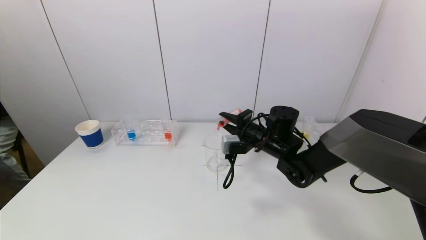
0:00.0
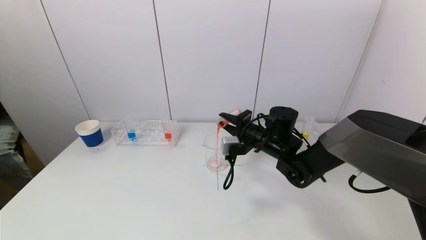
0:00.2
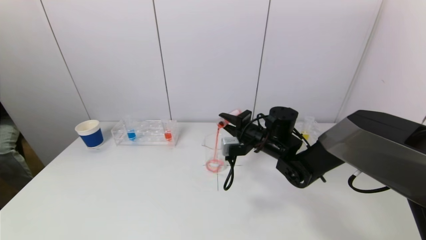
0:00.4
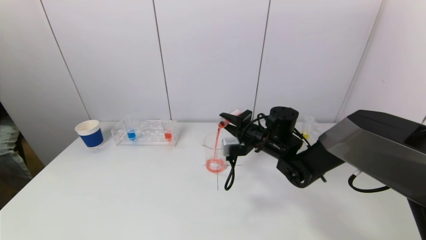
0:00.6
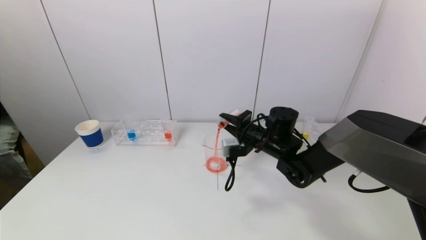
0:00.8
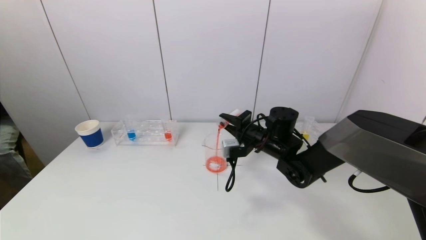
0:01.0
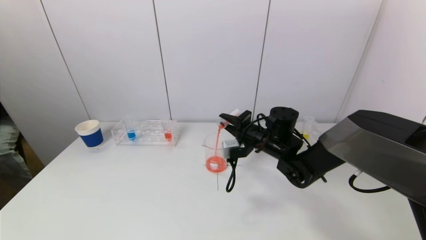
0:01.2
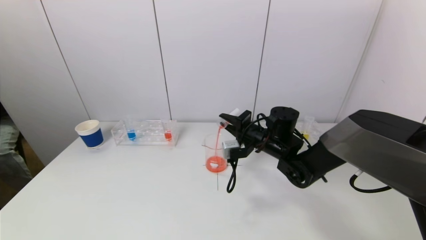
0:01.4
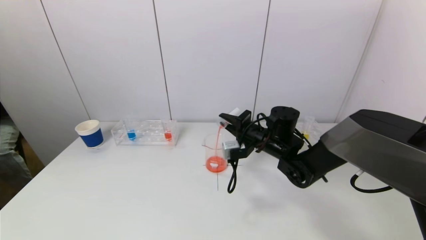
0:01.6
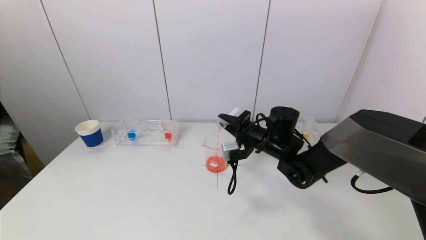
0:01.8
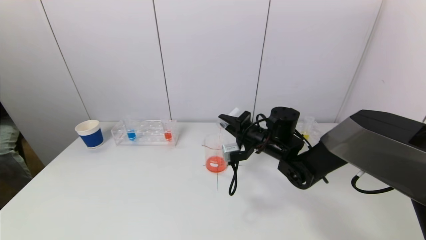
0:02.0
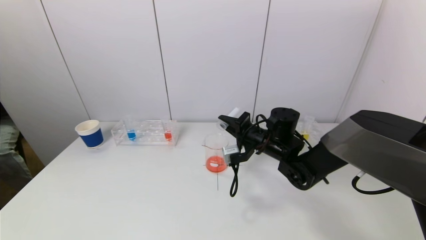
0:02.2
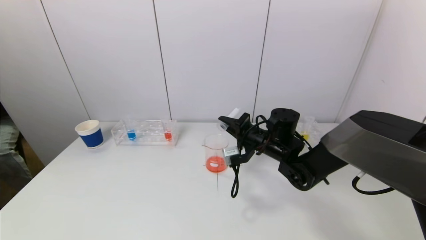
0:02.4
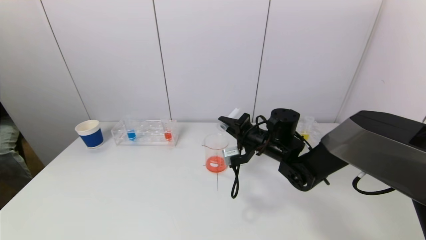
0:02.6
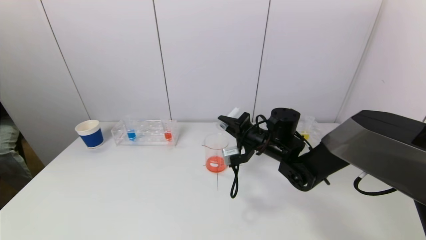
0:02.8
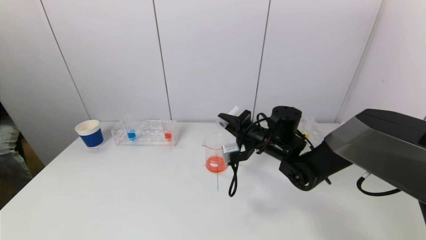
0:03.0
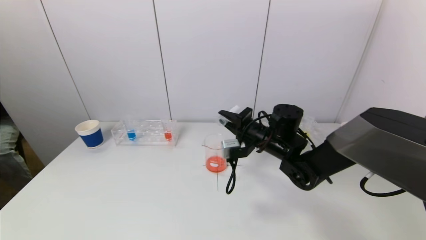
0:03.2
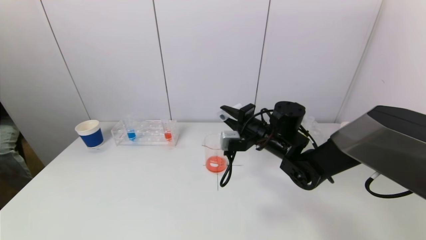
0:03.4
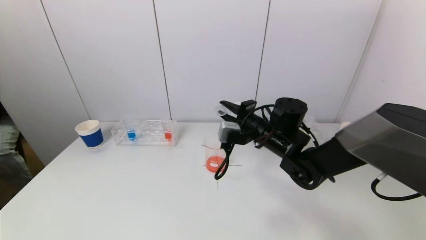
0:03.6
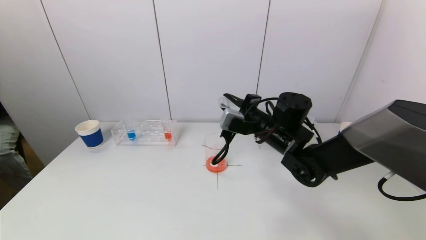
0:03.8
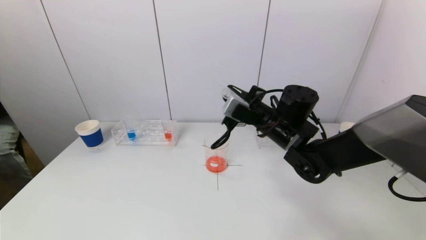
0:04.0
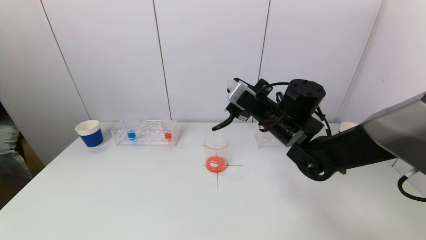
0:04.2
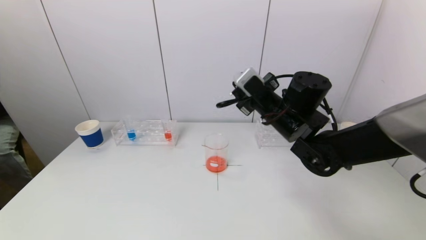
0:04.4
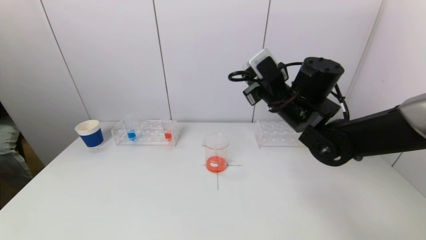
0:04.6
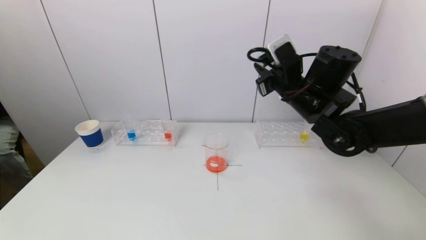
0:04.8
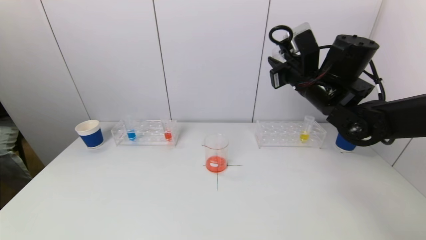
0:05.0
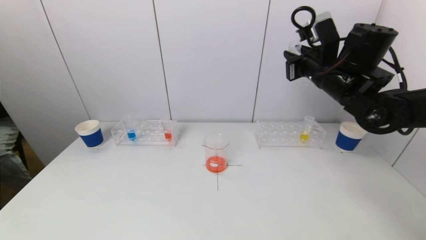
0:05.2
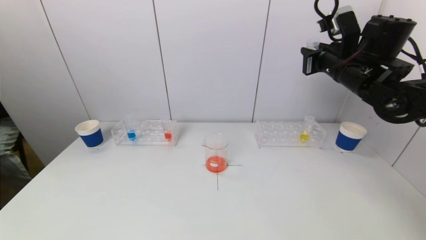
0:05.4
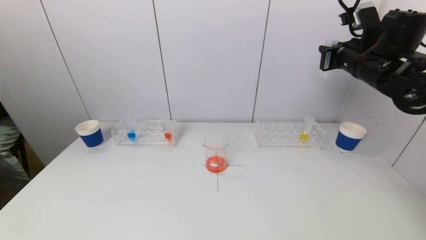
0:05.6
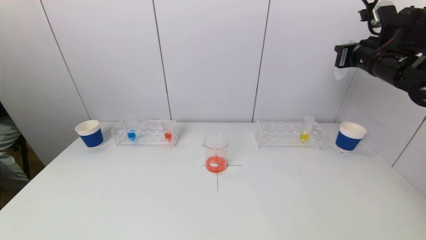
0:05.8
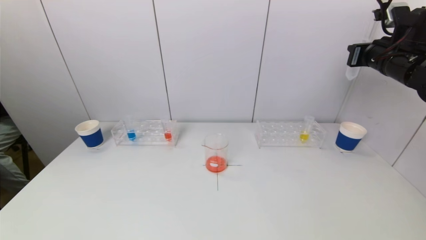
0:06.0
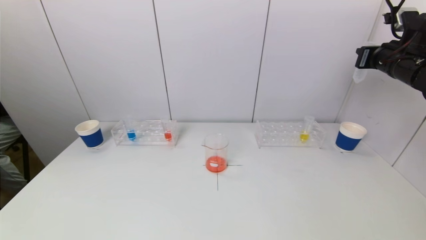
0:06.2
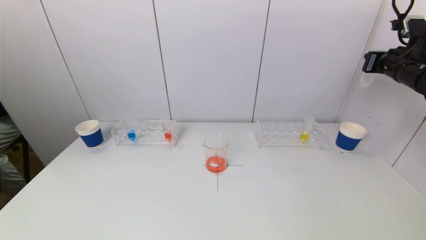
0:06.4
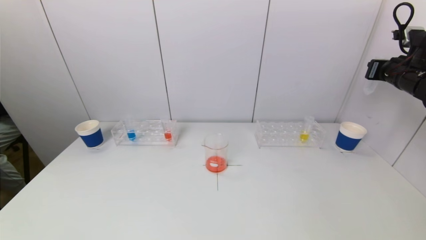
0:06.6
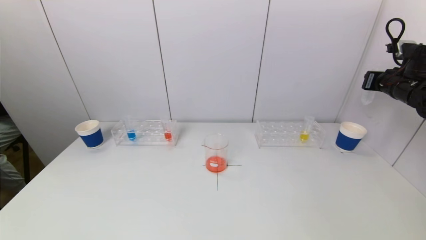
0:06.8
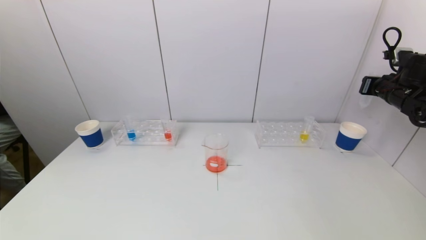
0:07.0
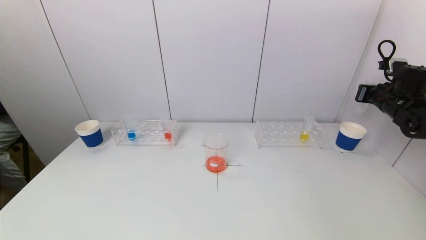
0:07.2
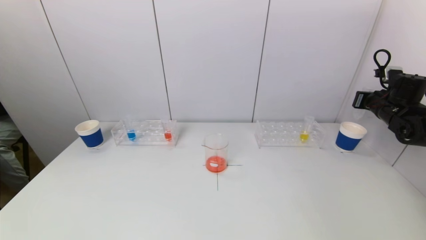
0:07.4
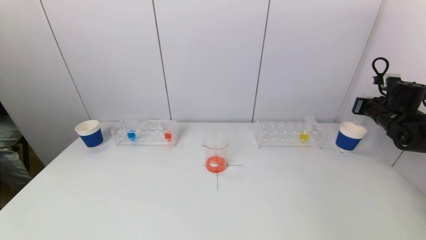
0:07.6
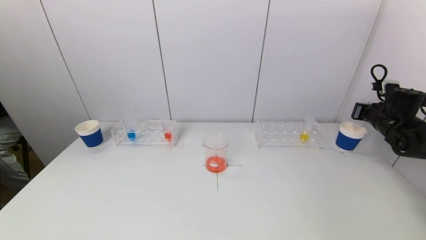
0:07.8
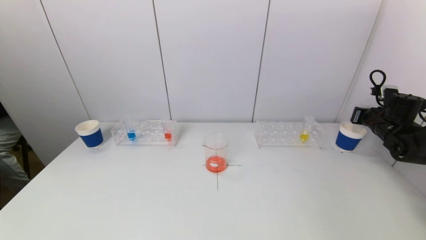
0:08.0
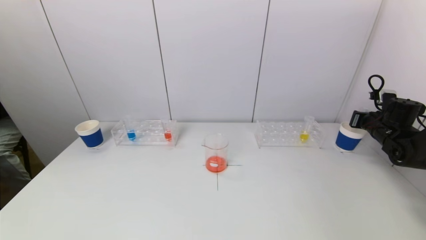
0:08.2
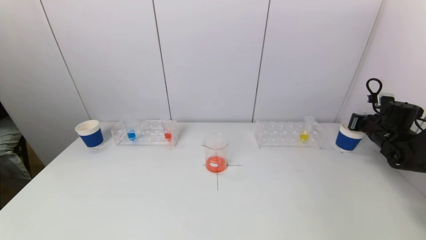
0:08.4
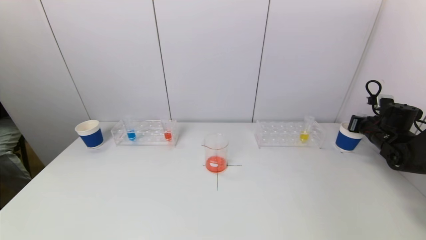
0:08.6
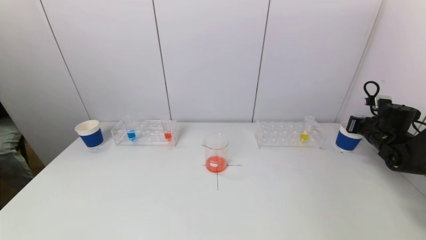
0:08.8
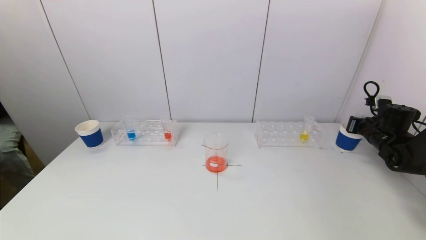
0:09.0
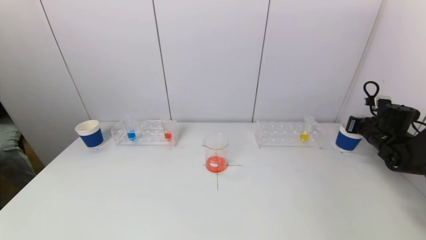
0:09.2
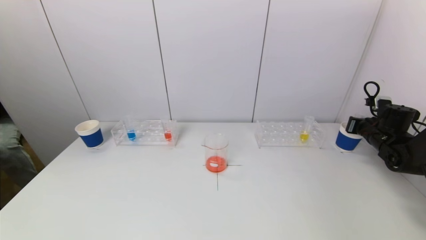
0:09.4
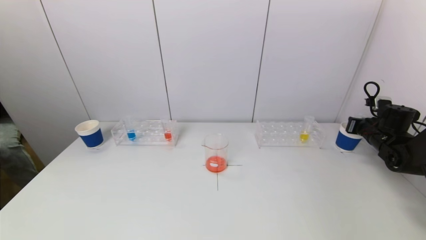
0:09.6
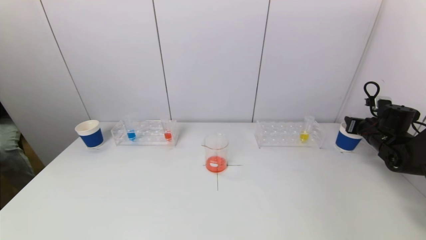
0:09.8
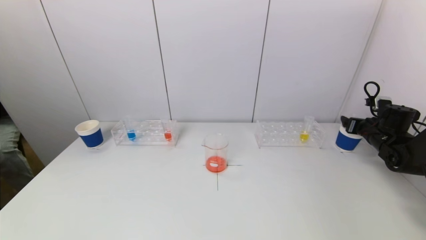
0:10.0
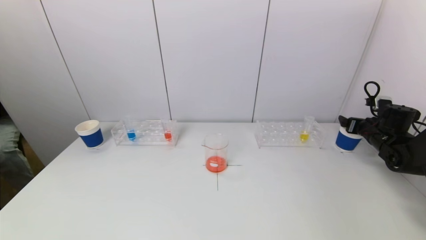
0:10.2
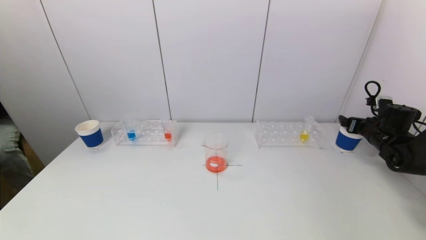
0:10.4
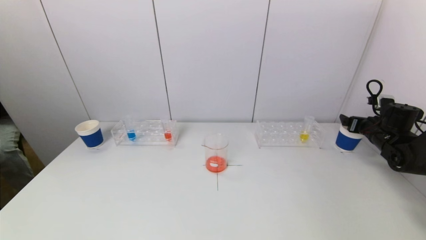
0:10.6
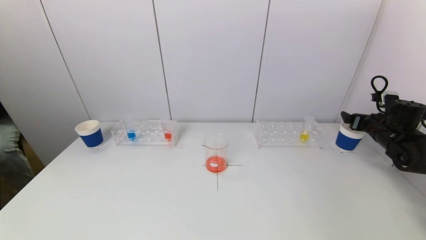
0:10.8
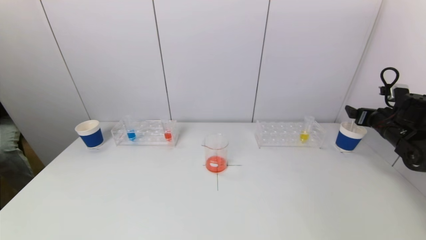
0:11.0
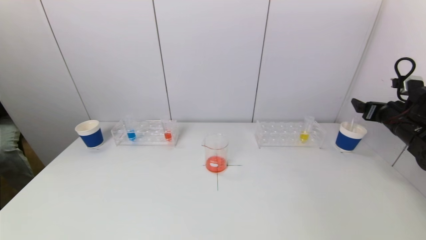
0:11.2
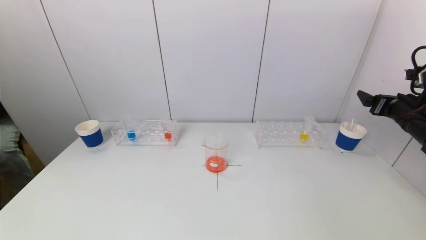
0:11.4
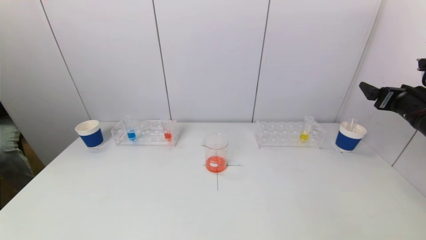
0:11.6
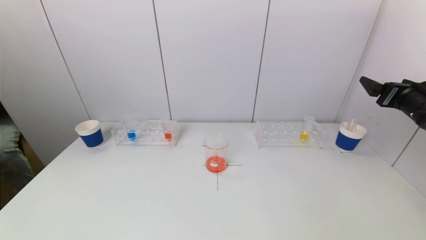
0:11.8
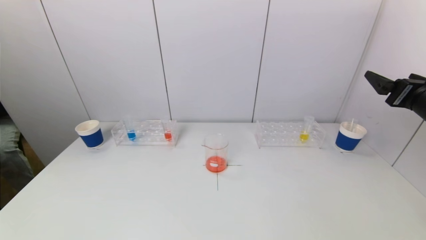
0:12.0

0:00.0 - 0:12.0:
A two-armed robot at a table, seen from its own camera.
Task of the whole recording: pick up a test tube with pigment on left test tube rack and a test tube with pigment on right test tube rack by grippers and pour them into the beaker.
Step, 0:00.0 - 0:02.6: Pour the red reagent into the graduated cylinder with the right gripper.
Step, 0:02.8 - 0:10.2: Place the test tube into the paper cup with the right gripper.
0:00.0 - 0:03.0: There are only small adjustments of the grippers.
0:03.0 - 0:04.4: The right gripper is displaced upward by roughly 10 cm.
0:04.4 - 0:06.0: The right gripper shifts some 25 cm to the right and upward.
0:06.0 - 0:07.6: The right gripper goes approximately 20 cm downward and to the right.
0:07.6 - 0:09.0: The right gripper shifts roughly 5 cm downward.
0:10.4 - 0:12.0: The right gripper heads upward, backward and to the left, covering some 25 cm.

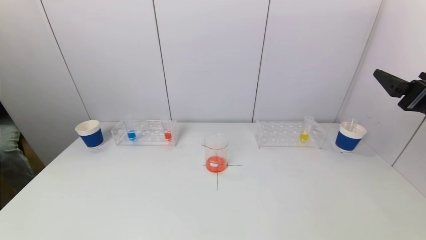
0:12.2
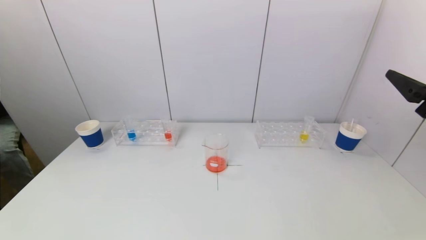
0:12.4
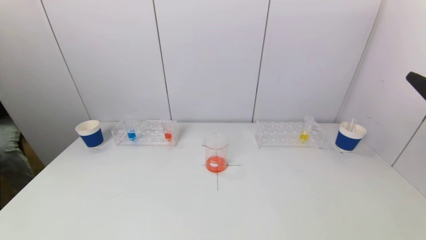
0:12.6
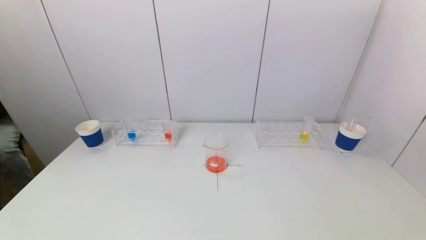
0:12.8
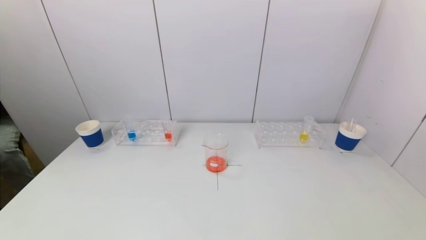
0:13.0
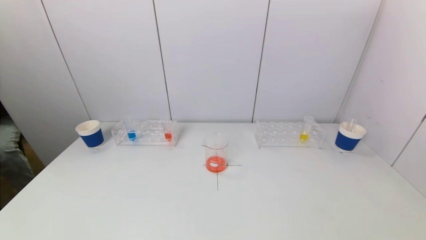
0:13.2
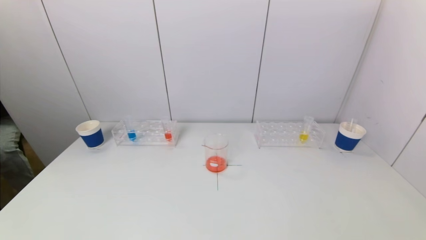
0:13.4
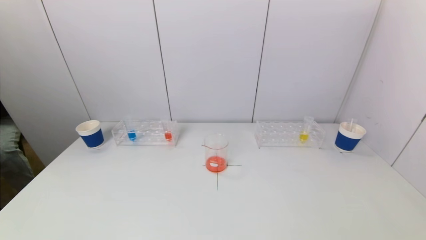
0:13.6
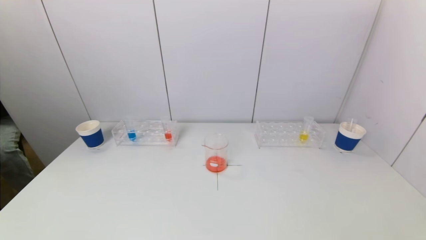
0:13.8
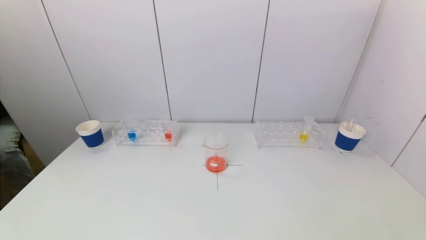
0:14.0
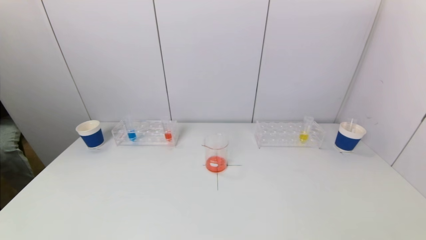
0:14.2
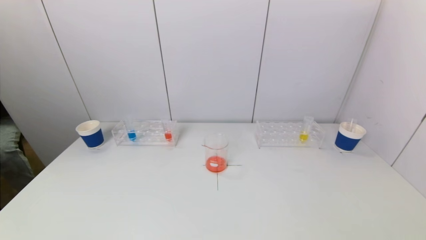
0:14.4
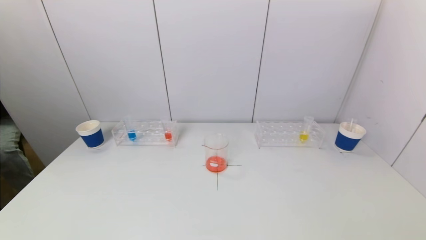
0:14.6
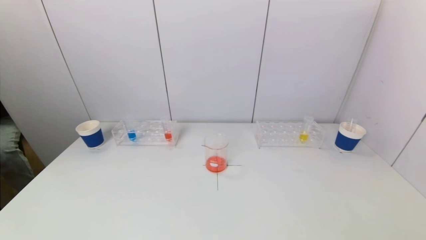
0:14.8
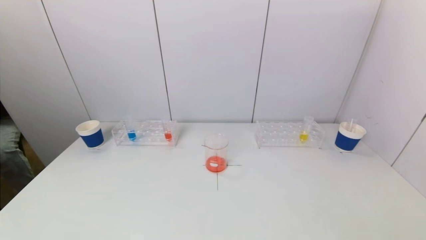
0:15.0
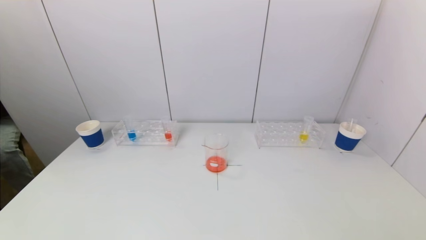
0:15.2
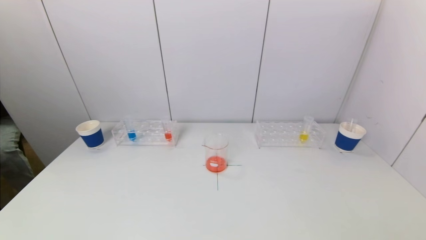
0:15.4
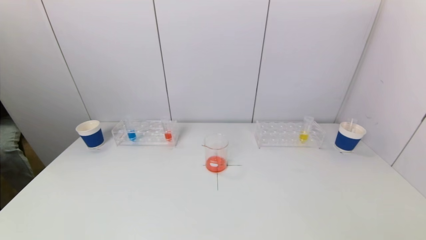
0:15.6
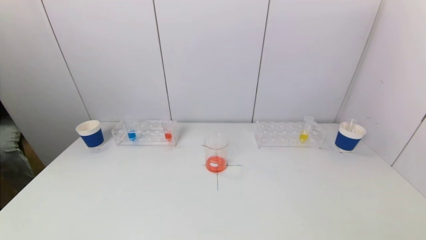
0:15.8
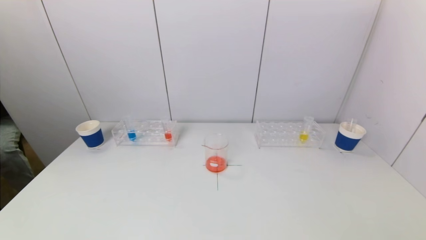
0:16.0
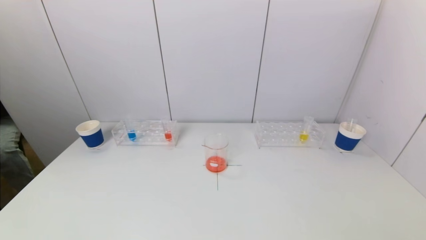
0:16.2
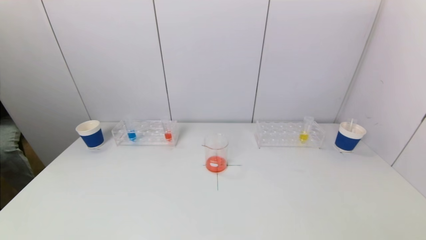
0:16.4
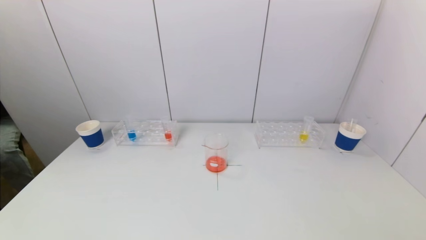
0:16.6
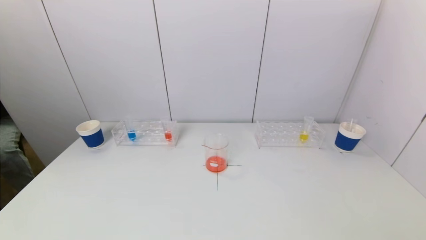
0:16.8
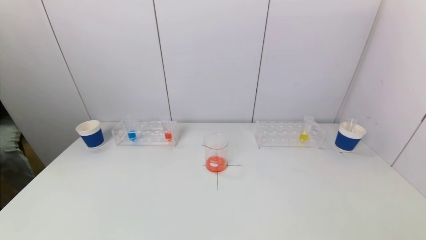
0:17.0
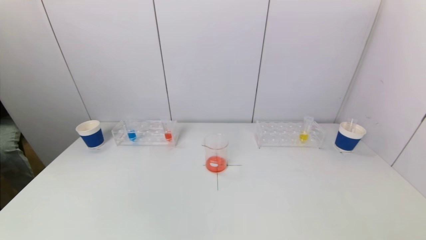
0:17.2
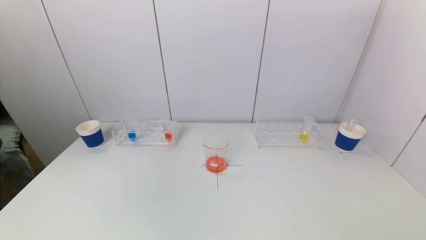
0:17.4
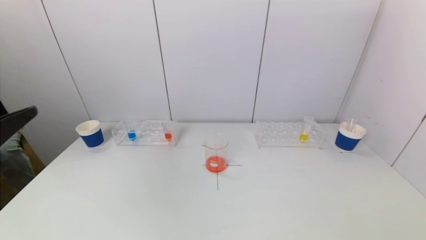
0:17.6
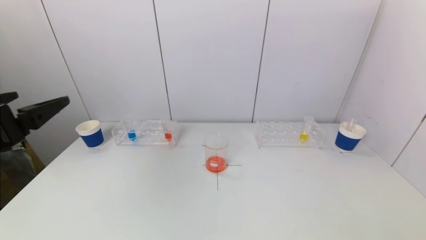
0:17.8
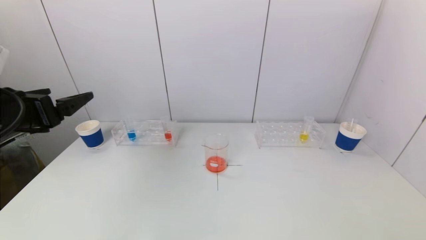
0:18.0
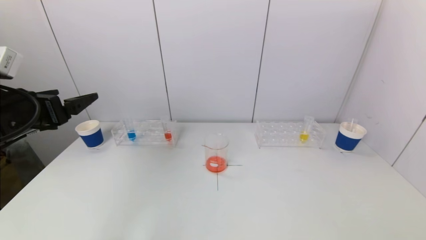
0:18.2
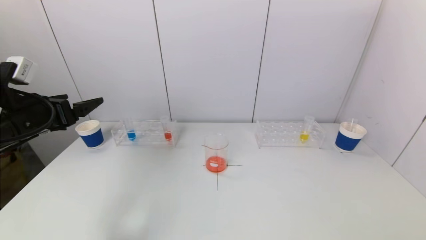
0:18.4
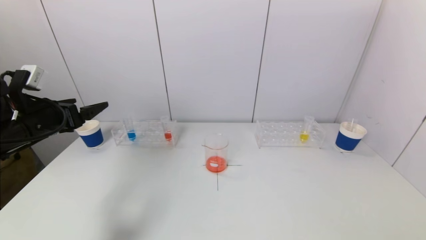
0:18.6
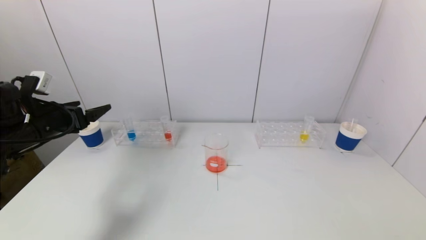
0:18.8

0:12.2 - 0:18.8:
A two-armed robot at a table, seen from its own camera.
Task of the whole recording: pick up a test tube with pigment on left test tube rack and a test tube with pigment on right test tube rack by grippers and pour them into the beaker.
0:12.2 - 0:13.8: The right gripper shifts about 25 cm backward.
0:17.2 - 0:18.8: The left gripper travels forward by about 30 cm.
